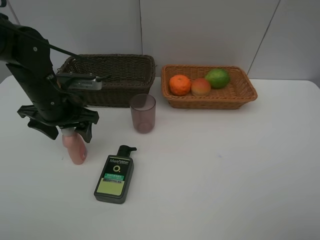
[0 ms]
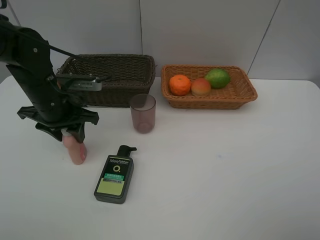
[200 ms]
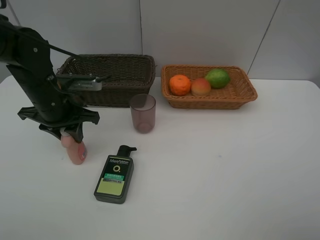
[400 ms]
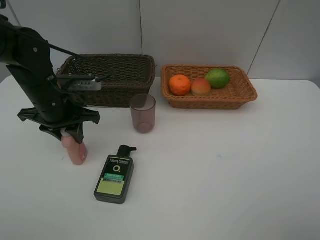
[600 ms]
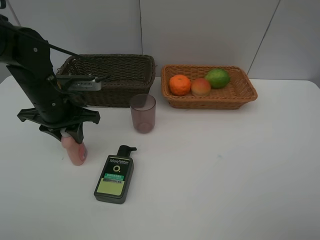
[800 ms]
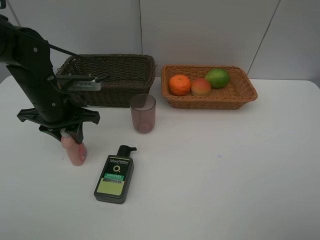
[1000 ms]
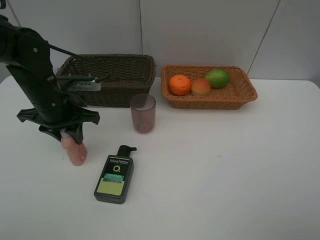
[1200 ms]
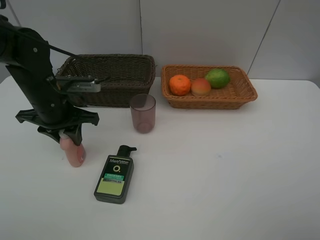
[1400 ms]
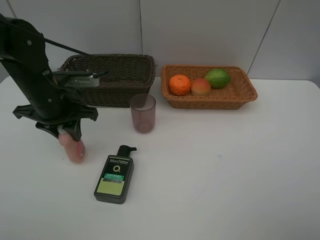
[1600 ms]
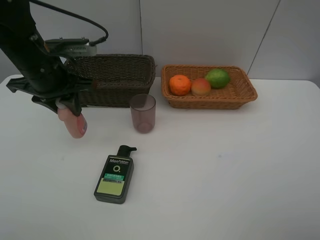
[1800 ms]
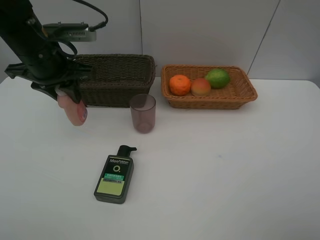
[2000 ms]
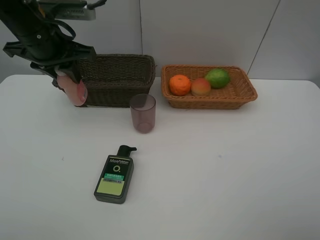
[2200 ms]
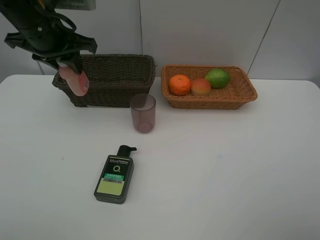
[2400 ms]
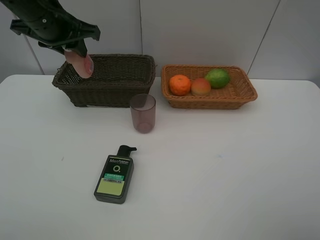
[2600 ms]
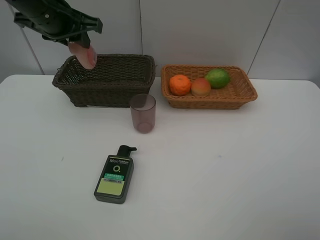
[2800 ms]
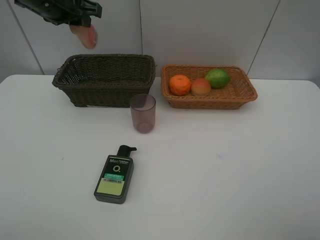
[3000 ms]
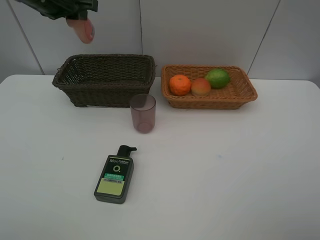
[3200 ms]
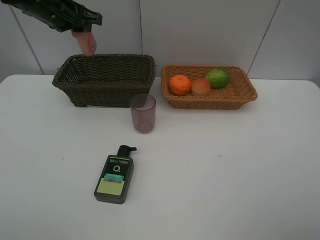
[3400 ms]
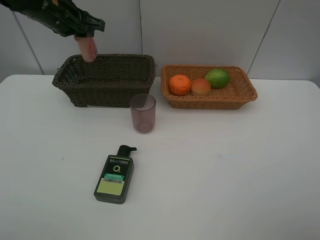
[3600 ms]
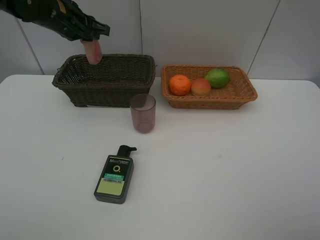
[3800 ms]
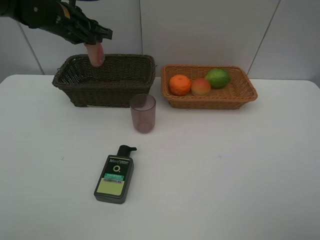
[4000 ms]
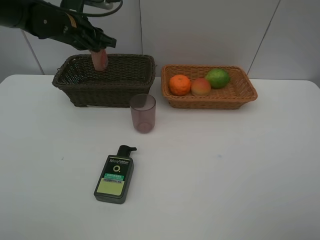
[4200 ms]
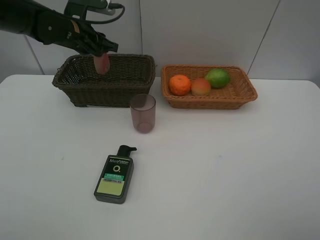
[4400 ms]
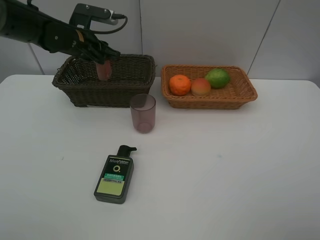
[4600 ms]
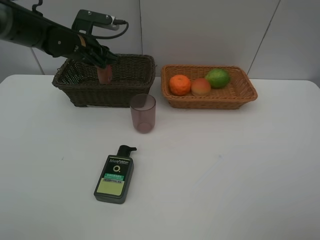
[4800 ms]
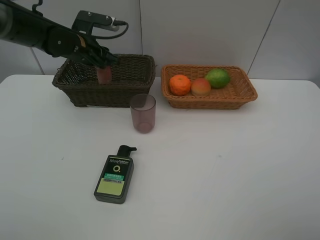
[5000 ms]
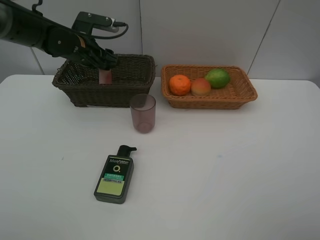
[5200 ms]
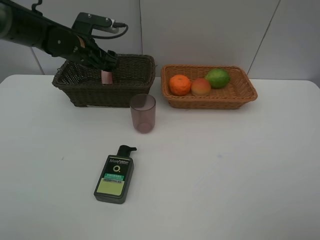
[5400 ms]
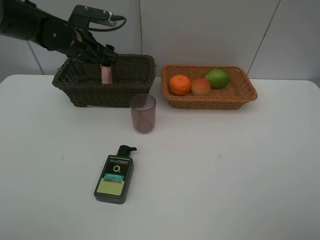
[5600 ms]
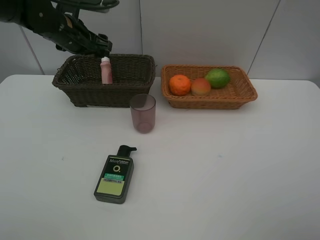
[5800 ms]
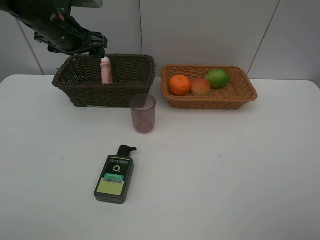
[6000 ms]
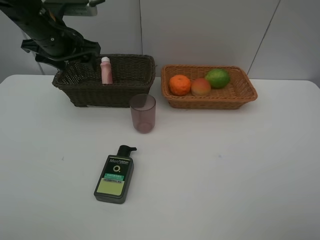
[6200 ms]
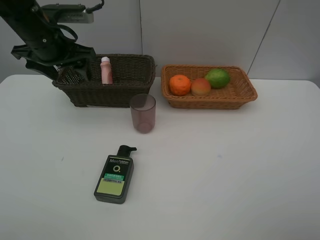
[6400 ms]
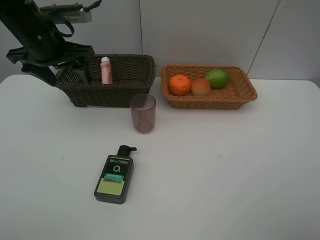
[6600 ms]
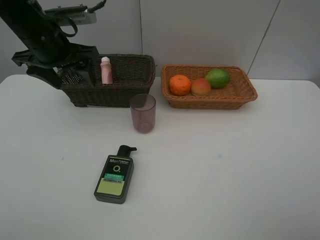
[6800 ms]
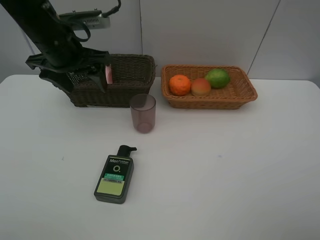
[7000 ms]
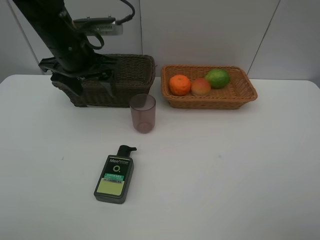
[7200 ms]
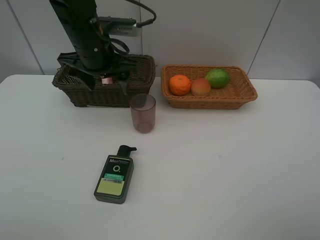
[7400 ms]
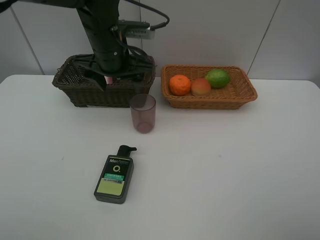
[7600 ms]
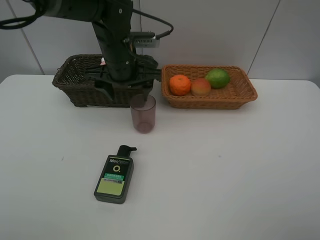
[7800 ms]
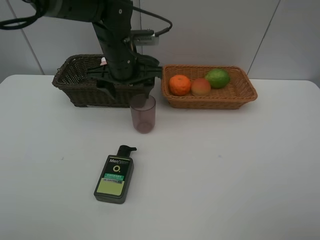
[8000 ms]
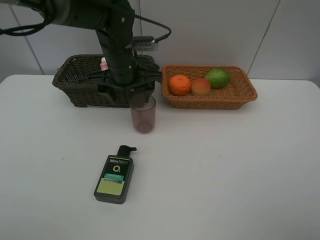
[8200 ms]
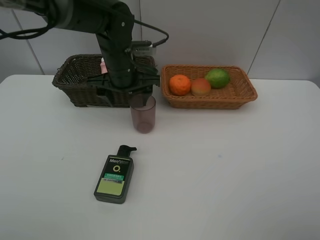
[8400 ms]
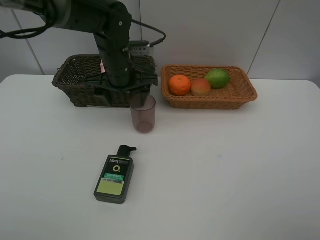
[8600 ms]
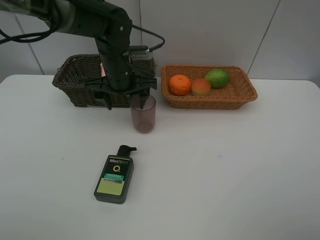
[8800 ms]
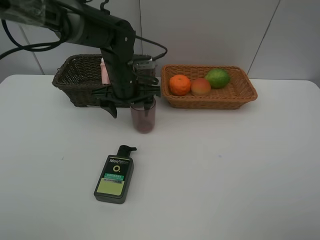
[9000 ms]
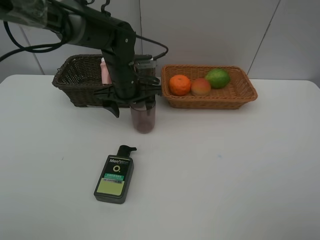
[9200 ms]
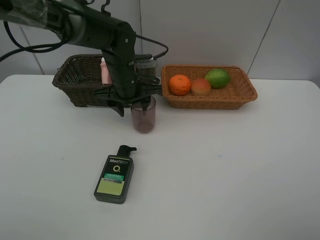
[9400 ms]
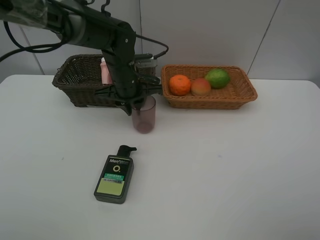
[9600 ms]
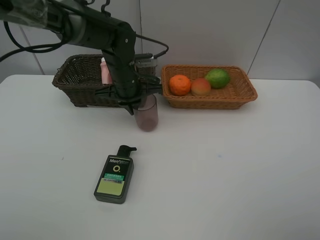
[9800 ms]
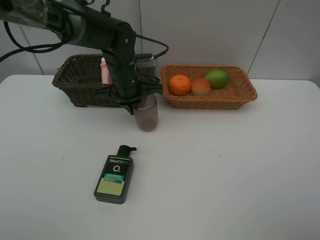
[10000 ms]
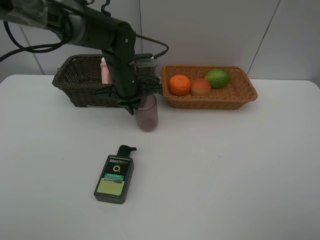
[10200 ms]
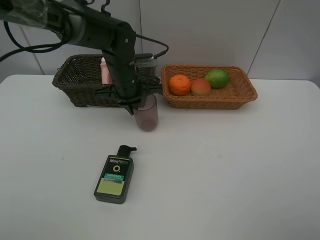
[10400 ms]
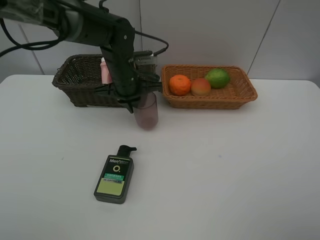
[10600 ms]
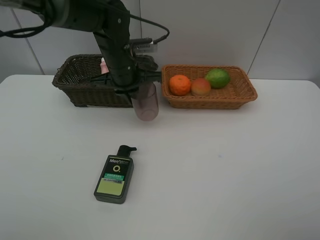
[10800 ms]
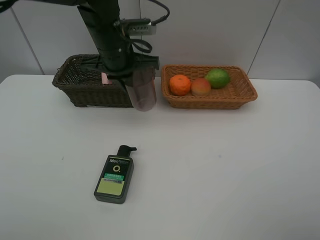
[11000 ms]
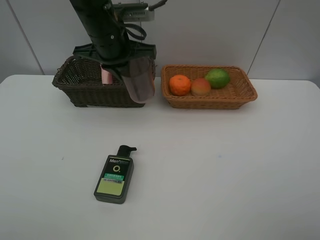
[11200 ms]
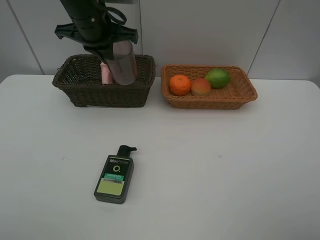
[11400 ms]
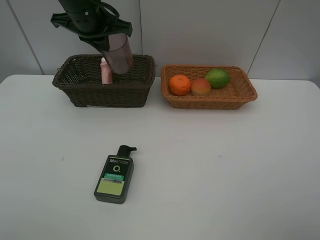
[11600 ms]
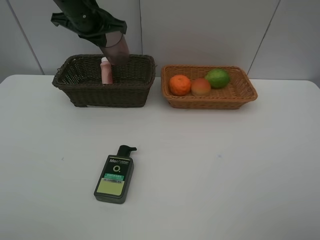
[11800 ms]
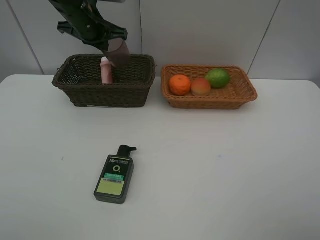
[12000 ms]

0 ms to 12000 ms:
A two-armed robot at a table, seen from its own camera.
Task of the whole recording: place multiple objects separately in different baskets.
0 ms to 1600 ms: The left gripper closes.
1600 ms to 3000 ms: The left gripper is displaced upward and forward by some 15 cm.
3000 ms to 4400 ms: The left gripper heads downward and forward, covering approximately 10 cm.
4400 ms to 6000 ms: The left gripper shifts by roughly 5 cm, and opens up.
6000 ms to 7600 ms: The left gripper shifts roughly 10 cm to the right.
7600 ms to 9000 ms: The left gripper is displaced downward by roughly 10 cm.
9000 ms to 10400 ms: The left gripper closes.
10400 ms to 12000 ms: The left gripper shifts approximately 15 cm upward, to the left and forward.

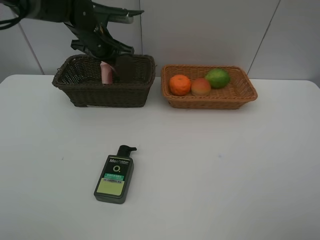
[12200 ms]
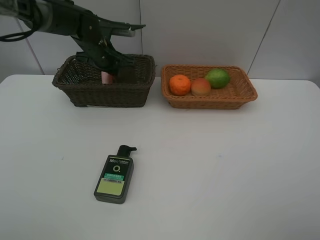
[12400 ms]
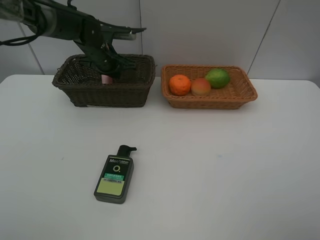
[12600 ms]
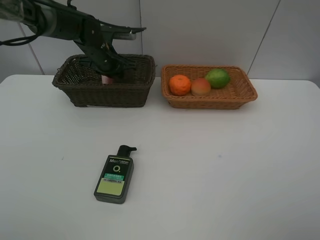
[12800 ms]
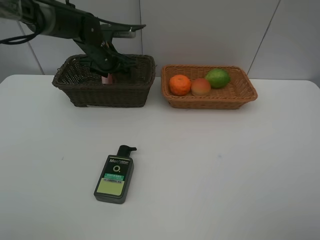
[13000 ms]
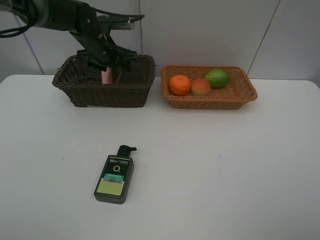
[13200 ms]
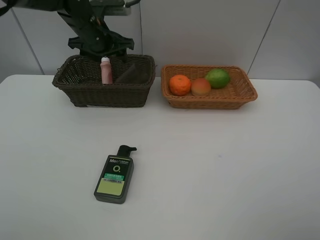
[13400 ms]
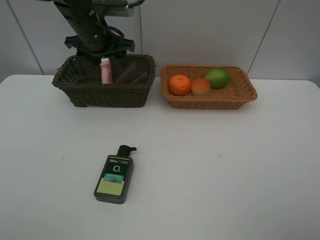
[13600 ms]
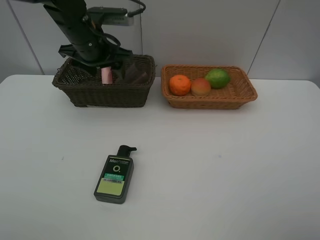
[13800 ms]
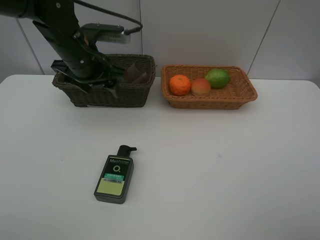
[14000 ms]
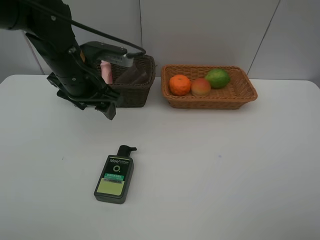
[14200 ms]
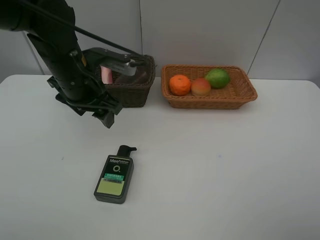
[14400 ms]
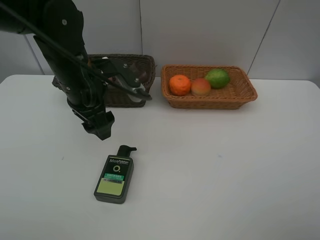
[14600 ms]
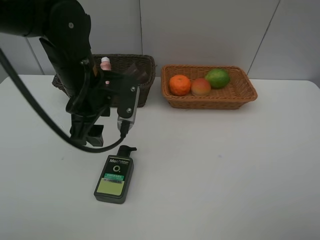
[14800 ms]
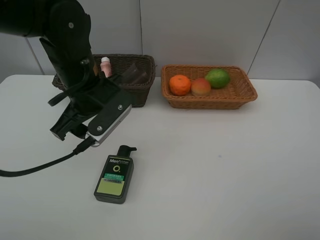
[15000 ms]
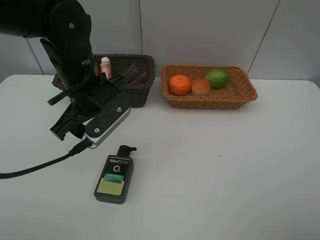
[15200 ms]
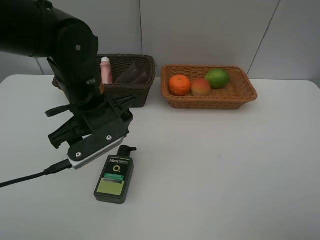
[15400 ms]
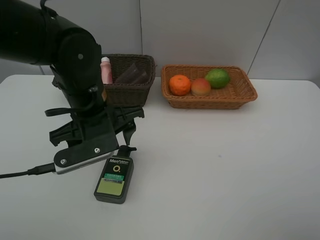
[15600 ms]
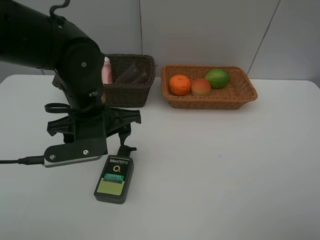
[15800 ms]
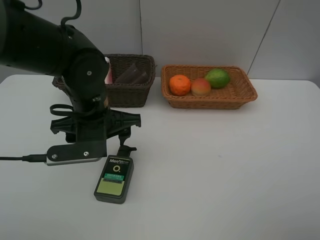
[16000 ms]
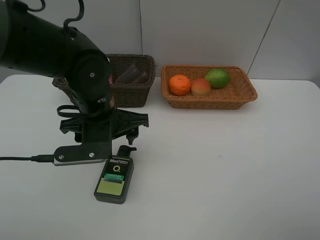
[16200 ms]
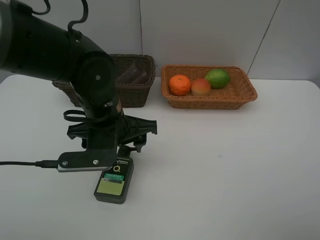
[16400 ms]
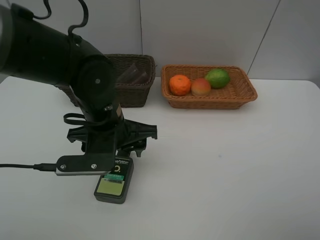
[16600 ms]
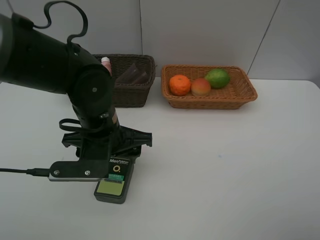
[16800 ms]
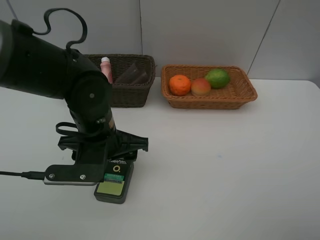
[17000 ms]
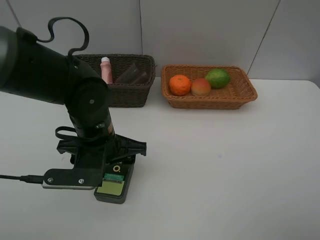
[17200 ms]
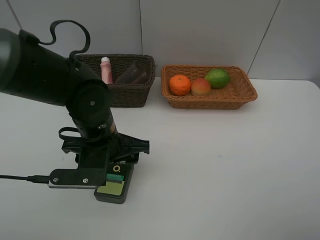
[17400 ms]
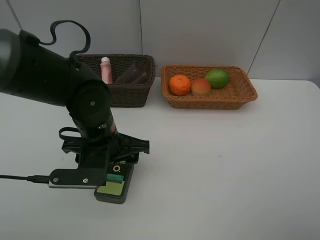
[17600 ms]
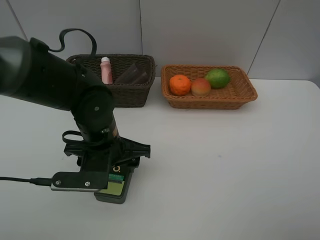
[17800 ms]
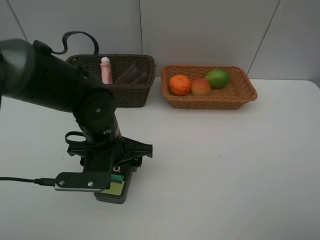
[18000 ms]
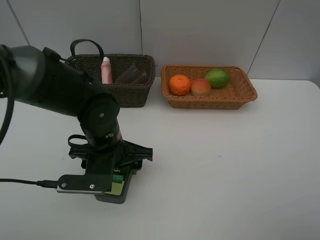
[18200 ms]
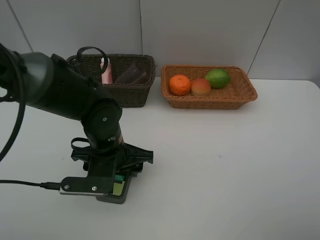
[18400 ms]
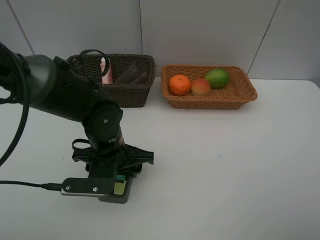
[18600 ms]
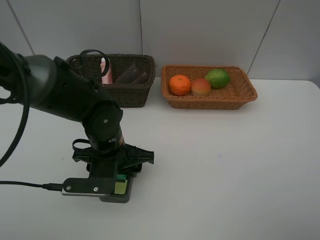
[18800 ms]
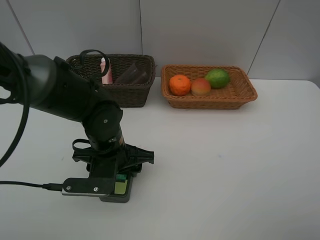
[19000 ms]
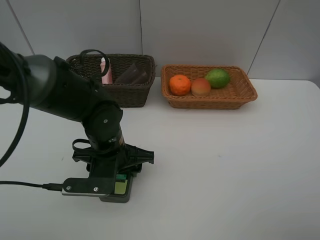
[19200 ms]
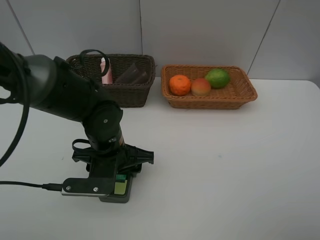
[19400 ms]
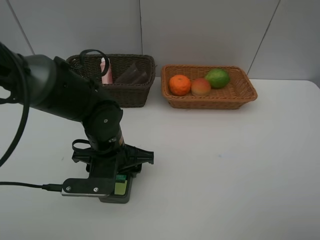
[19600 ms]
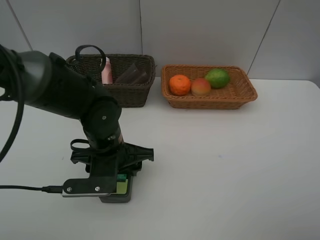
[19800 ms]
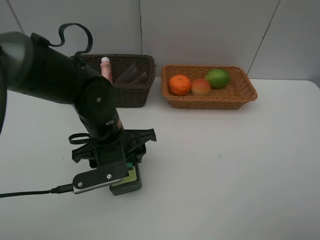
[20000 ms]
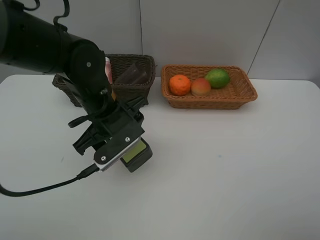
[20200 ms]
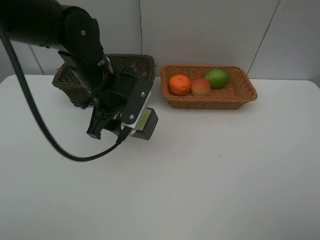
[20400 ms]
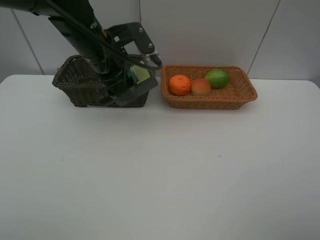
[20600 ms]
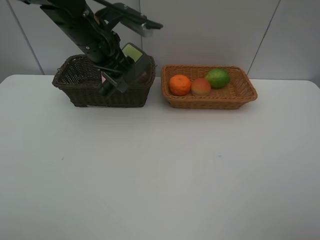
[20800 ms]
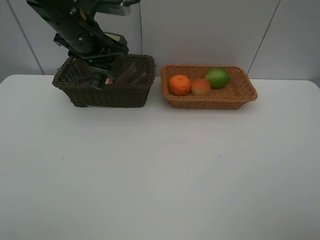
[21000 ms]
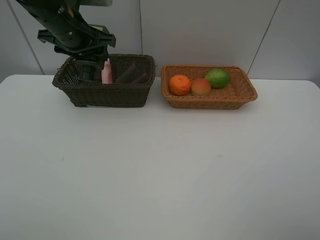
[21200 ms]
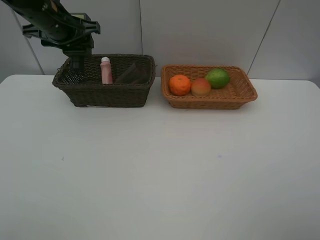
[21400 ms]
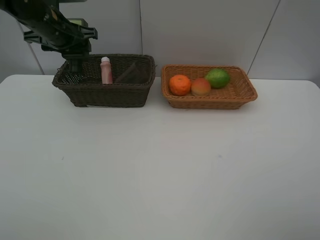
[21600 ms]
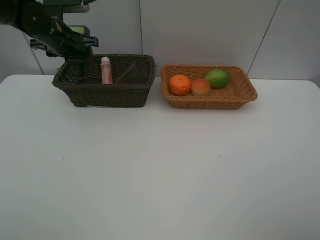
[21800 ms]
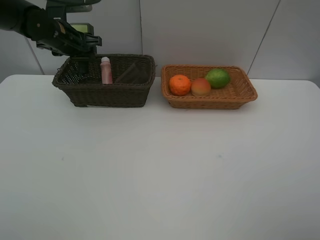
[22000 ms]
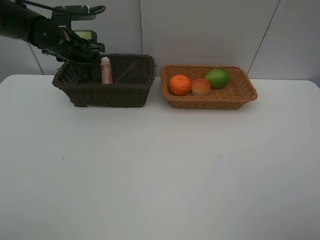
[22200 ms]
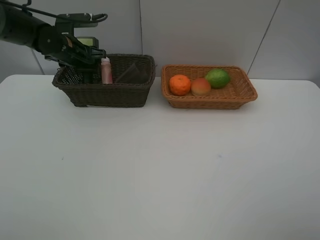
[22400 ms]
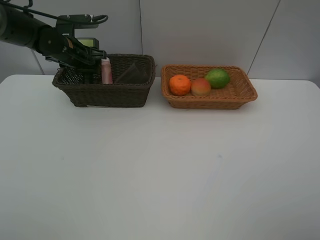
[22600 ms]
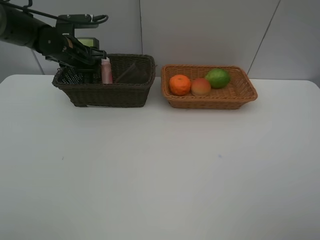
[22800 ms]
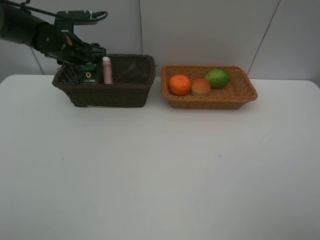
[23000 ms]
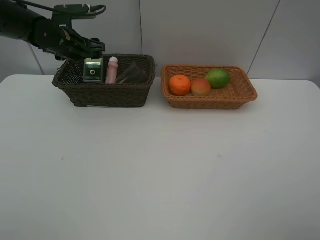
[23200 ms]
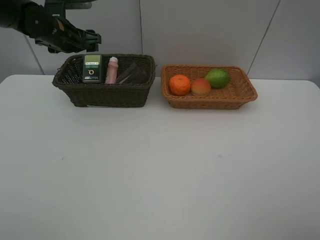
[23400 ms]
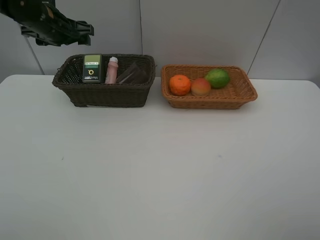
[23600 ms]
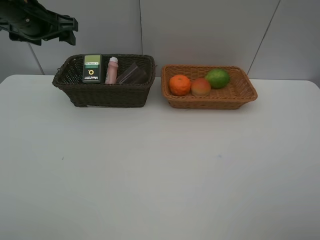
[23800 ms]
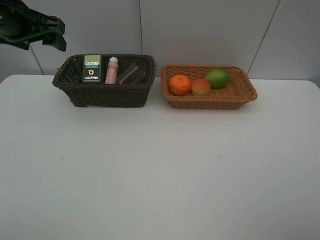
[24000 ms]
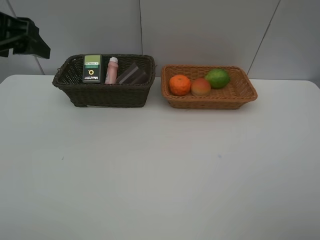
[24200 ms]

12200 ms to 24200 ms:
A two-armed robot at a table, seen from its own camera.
Task of the whole recording: place multiple objects separately in different baskets.
12200 ms to 13800 ms: The left gripper shifts approximately 10 cm backward, and opens.
13800 ms to 15200 ms: The left gripper heads backward, covering some 10 cm.
15200 ms to 16600 ms: The left gripper ends up some 5 cm from where it was.
16600 ms to 18200 ms: The left gripper shifts by roughly 5 cm.
18200 ms to 19800 ms: The grippers move only a little.
19800 ms to 21200 ms: The left gripper moves forward, upward and to the left, some 25 cm.
21200 ms to 22600 ms: The left gripper shifts some 10 cm downward and forward.
22600 ms to 24200 ms: The left gripper moves backward and upward, about 25 cm.
